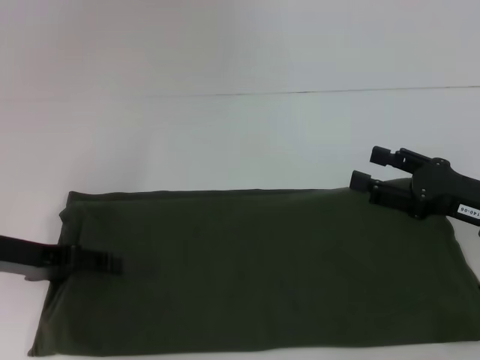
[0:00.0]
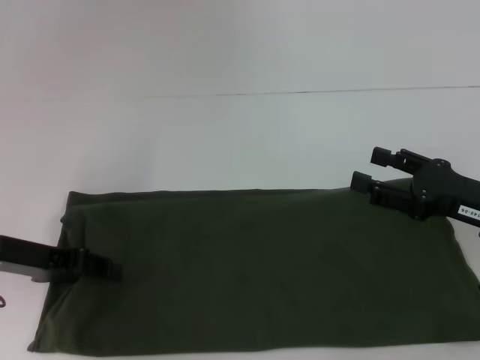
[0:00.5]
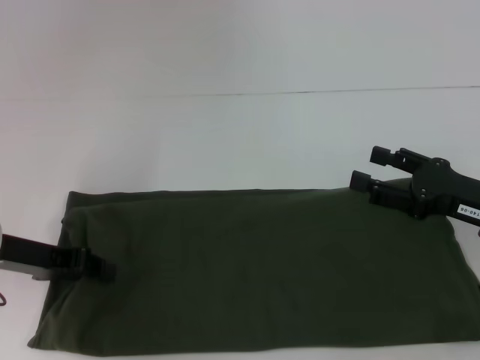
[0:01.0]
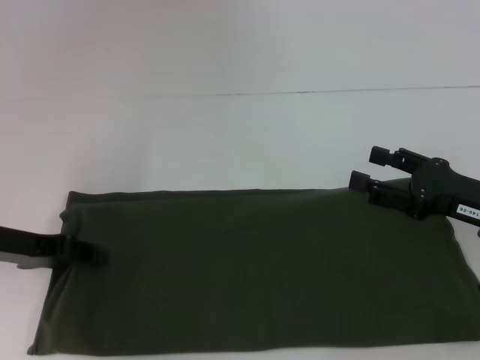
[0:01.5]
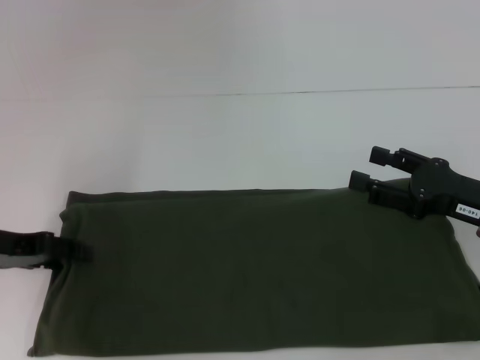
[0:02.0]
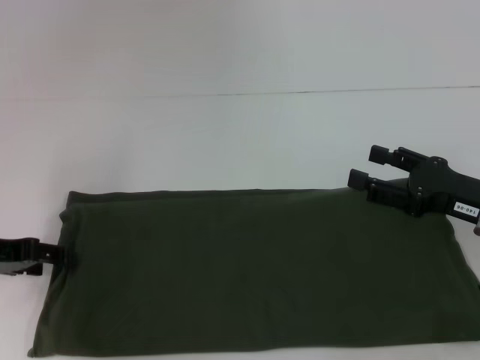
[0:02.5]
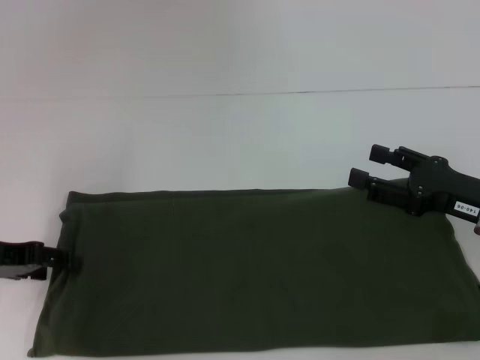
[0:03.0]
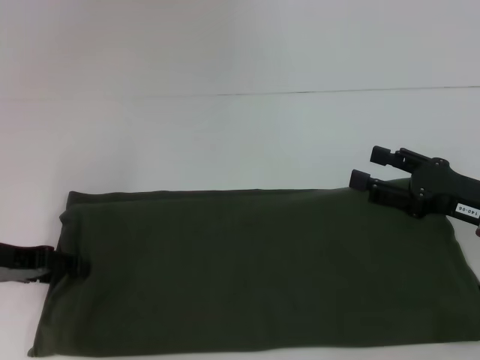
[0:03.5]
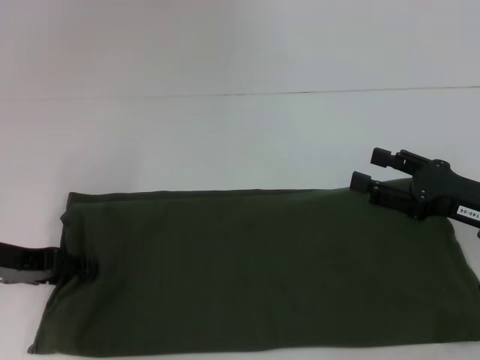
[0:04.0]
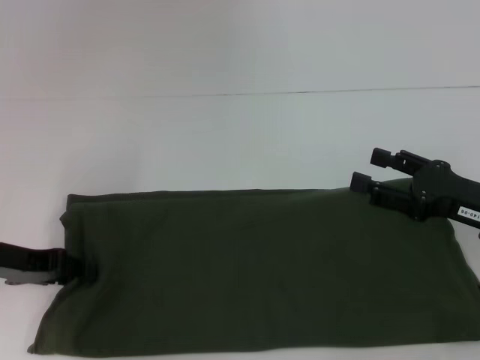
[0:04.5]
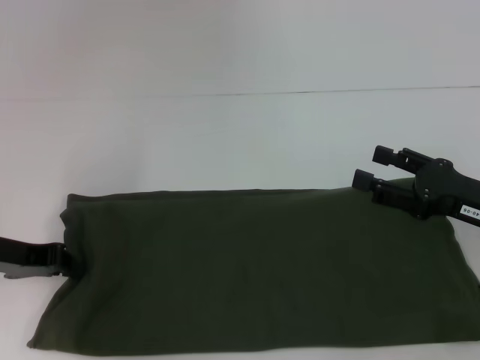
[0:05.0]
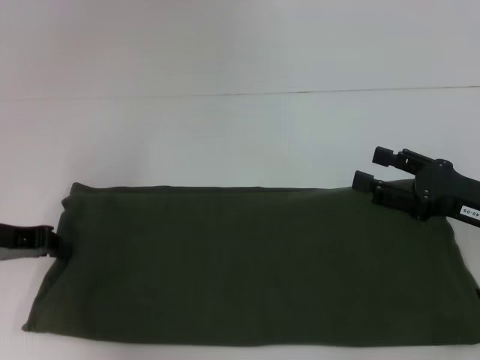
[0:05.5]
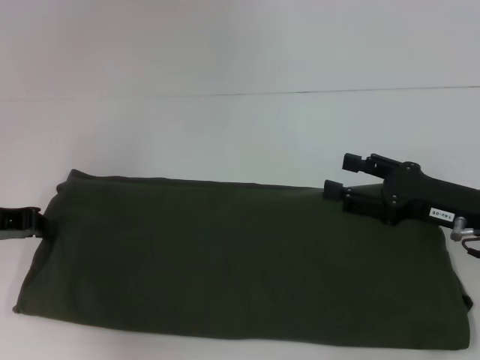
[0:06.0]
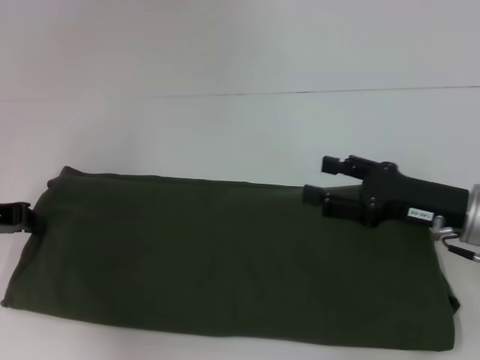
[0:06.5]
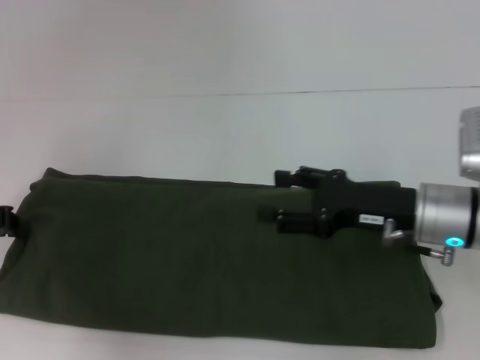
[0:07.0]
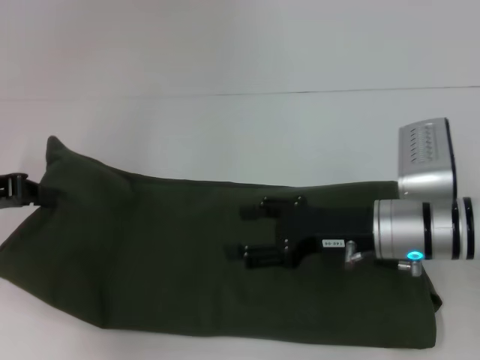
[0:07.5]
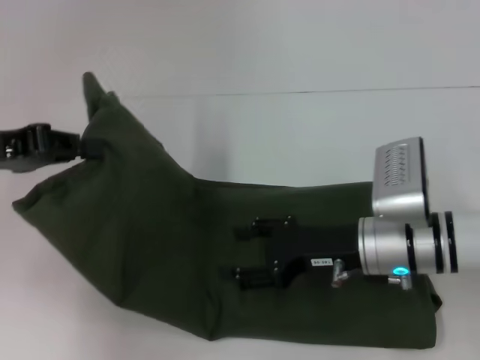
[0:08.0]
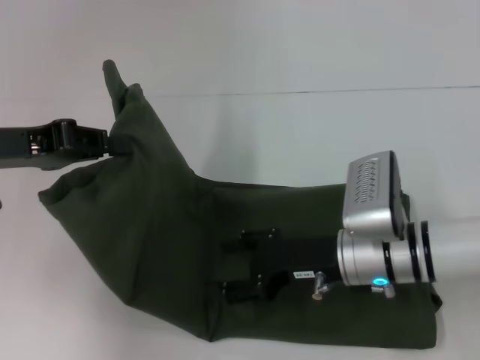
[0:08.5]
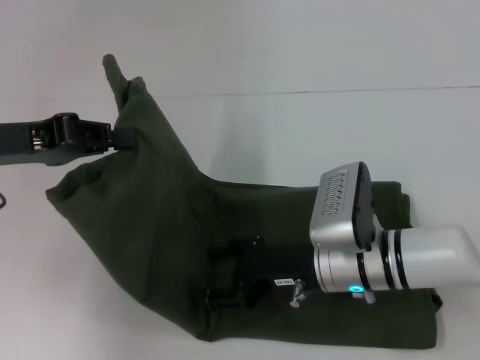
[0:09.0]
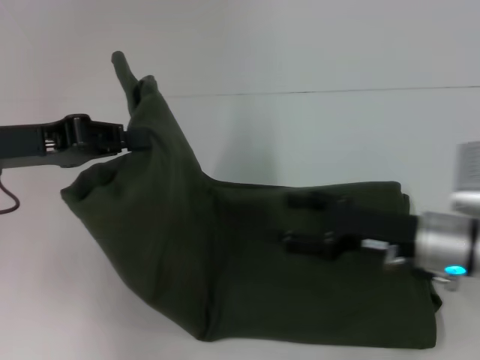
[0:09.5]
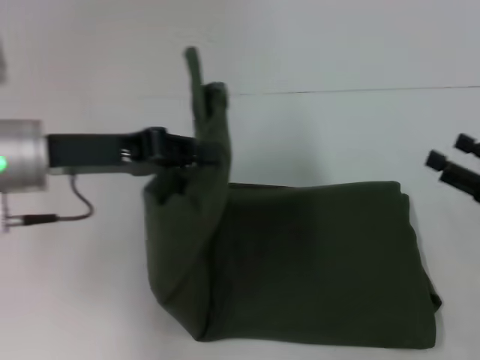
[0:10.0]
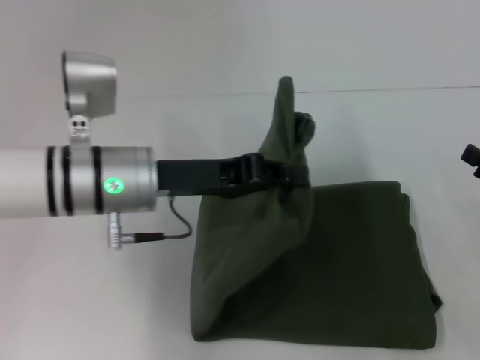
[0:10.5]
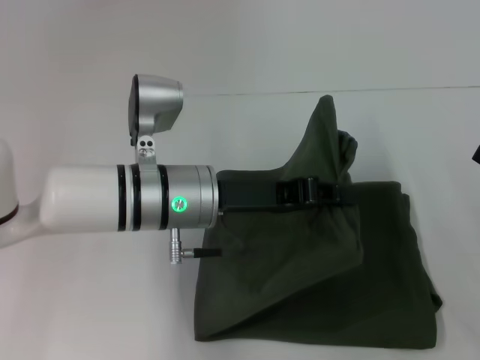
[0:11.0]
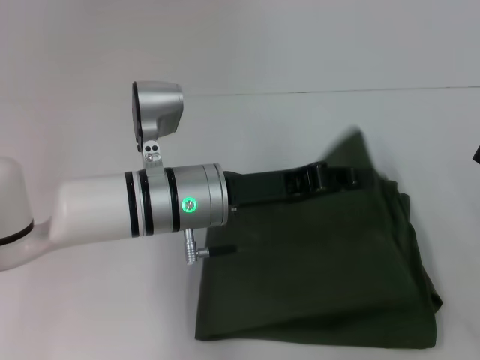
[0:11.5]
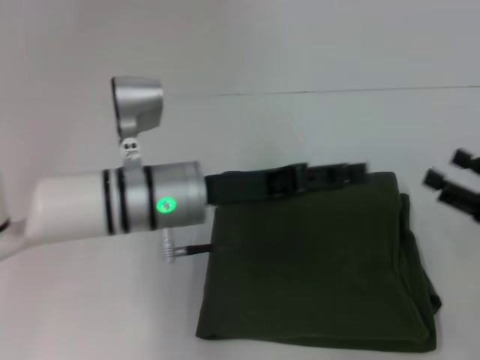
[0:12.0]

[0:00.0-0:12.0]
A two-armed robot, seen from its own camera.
Step, 0:00.0 to 0:11.5: Fold the clothes with your left hand.
0:00.0 to 0:02.0: The left gripper closes and opens again.
0:02.0 to 0:04.0: Neither gripper changes place.
0:04.0 to 0:06.0: The left gripper closes its fingers.
0:06.0 to 0:08.0: The right gripper heads to the left, covering about 10 cm. The left gripper goes some 5 cm upward.
0:08.0 to 0:10.0: The left gripper shifts about 10 cm to the right; the right gripper travels to the right by approximately 20 cm.
0:10.0 to 0:12.0: The left gripper travels to the right and downward by some 15 cm, and opens.

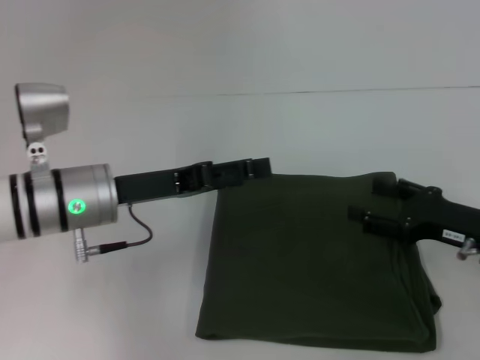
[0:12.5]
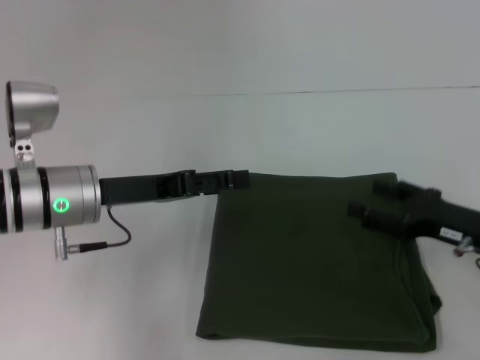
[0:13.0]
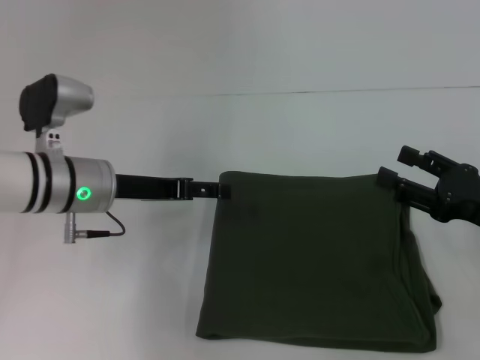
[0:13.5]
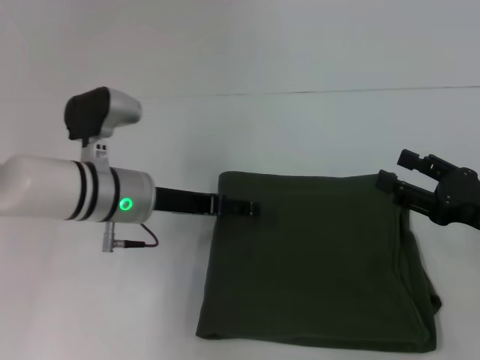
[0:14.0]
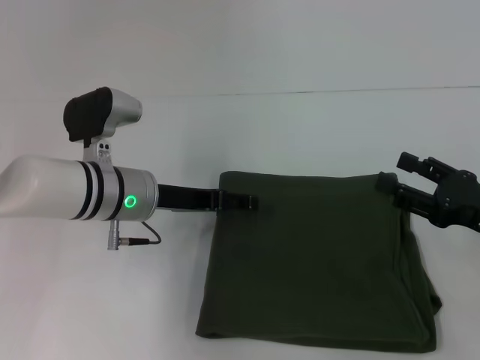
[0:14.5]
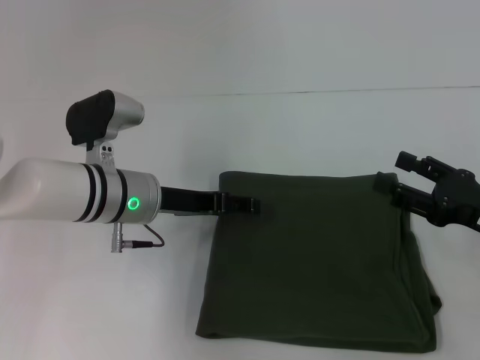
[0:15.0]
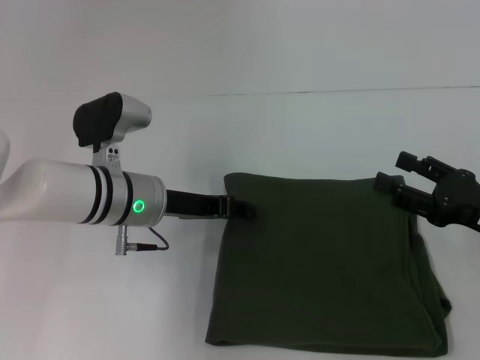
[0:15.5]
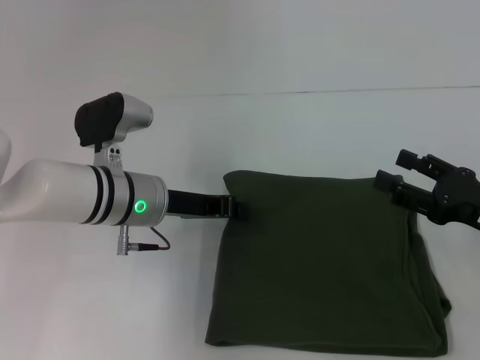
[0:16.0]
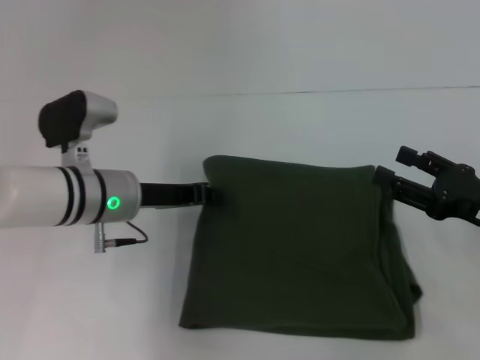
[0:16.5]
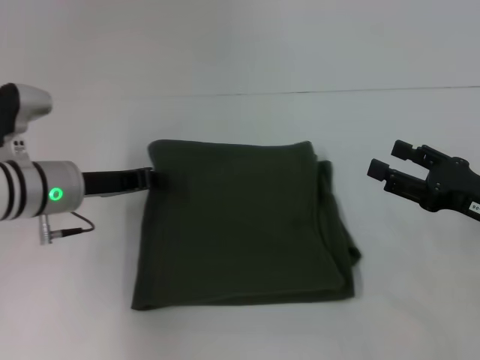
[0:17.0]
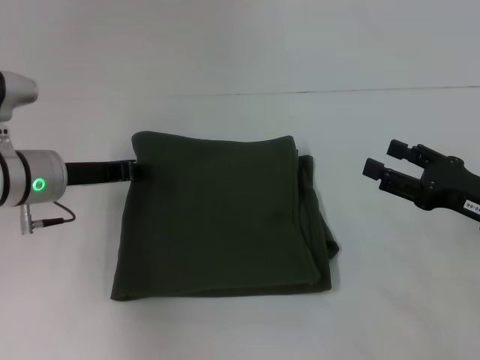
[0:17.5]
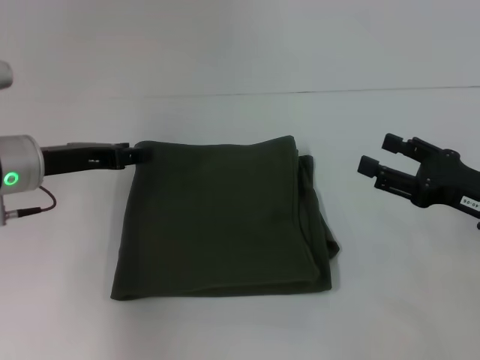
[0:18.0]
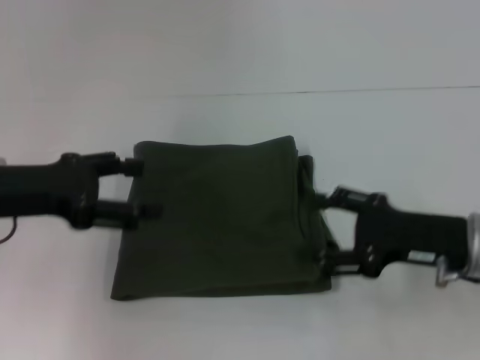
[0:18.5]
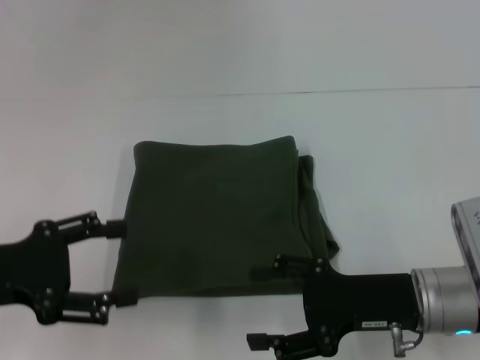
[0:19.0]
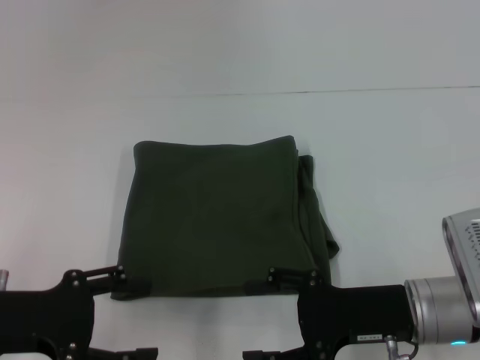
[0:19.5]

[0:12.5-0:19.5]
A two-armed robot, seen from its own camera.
0:12.5 to 0:14.5: The left gripper moves roughly 5 cm.
0:14.5 to 0:16.0: The left gripper closes up.
0:16.0 to 0:17.5: The left gripper heads to the left, covering some 10 cm.
0:17.5 to 0:19.5: The right gripper is displaced to the left by approximately 10 cm; the left gripper travels backward by some 15 cm, and opens.
